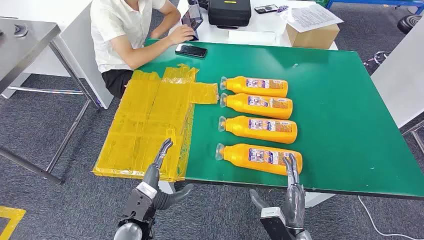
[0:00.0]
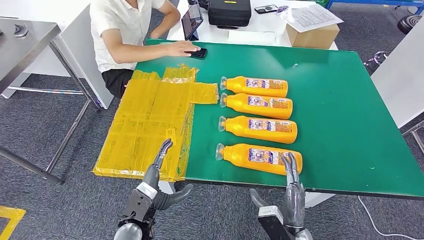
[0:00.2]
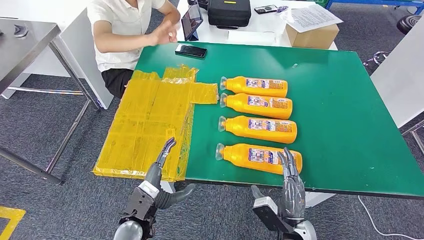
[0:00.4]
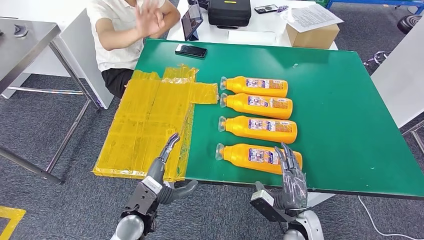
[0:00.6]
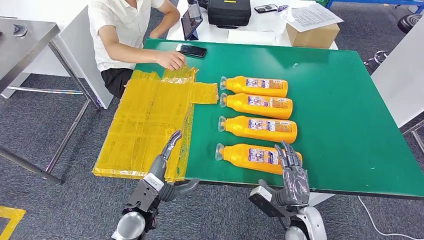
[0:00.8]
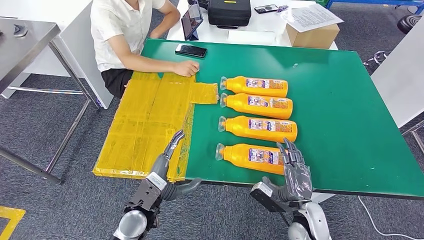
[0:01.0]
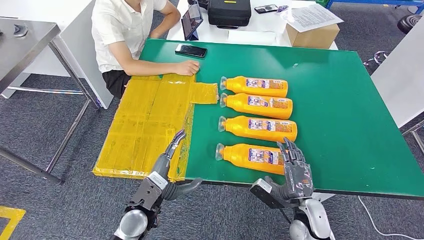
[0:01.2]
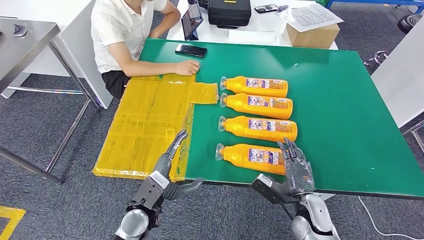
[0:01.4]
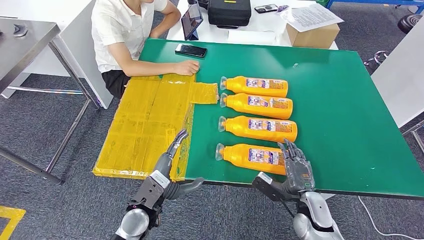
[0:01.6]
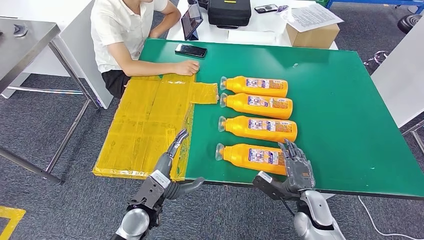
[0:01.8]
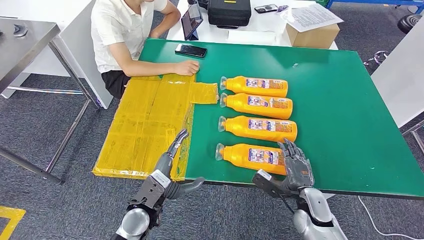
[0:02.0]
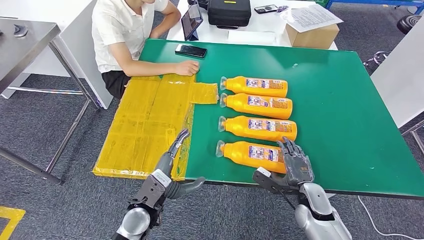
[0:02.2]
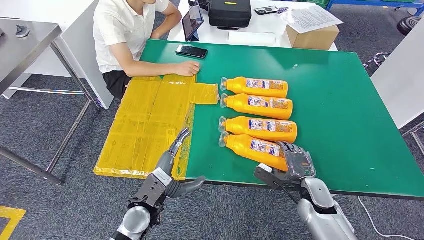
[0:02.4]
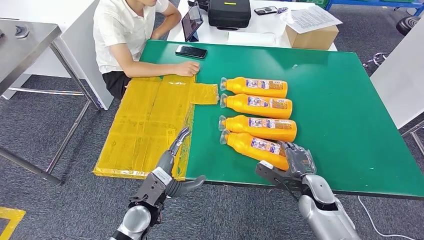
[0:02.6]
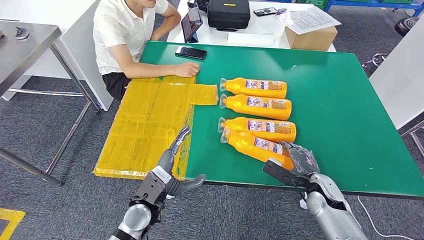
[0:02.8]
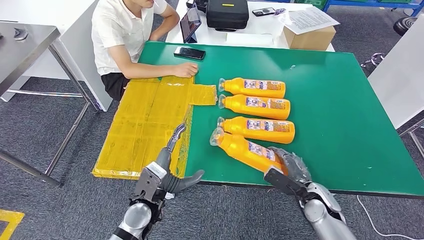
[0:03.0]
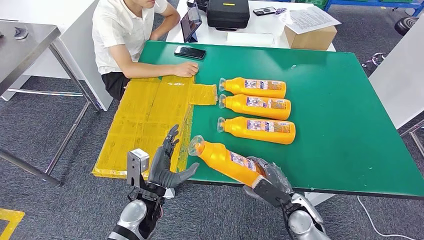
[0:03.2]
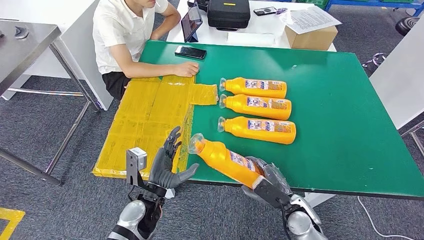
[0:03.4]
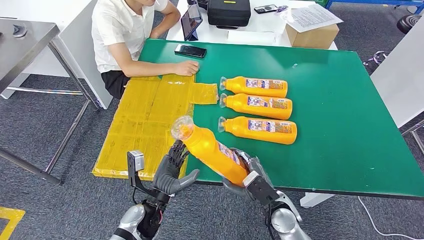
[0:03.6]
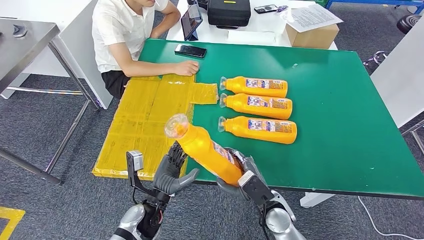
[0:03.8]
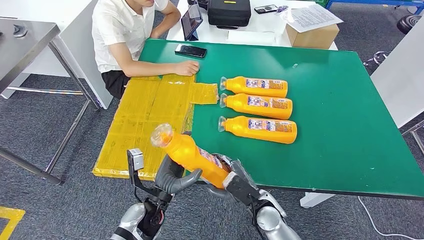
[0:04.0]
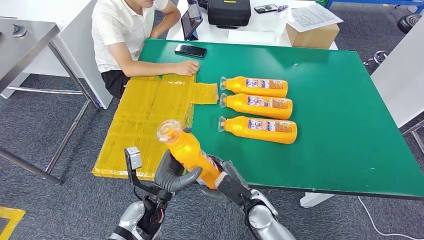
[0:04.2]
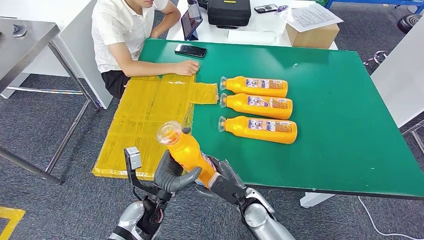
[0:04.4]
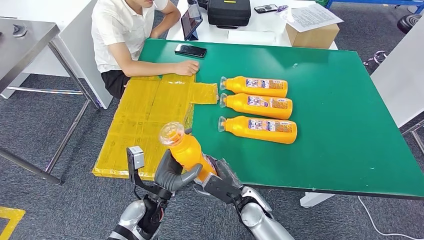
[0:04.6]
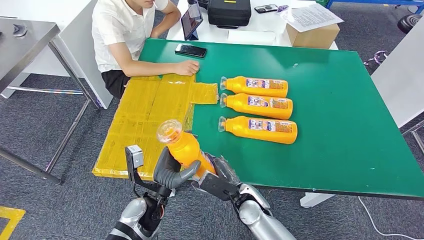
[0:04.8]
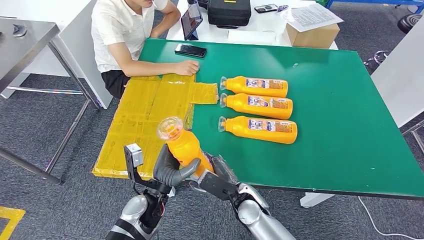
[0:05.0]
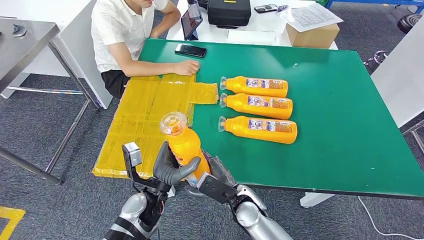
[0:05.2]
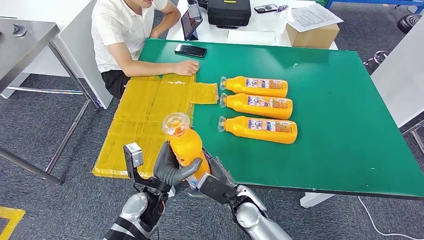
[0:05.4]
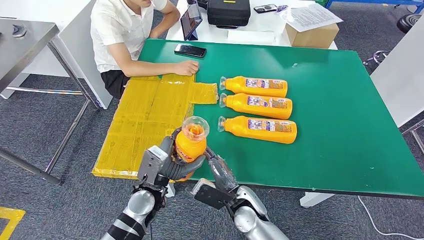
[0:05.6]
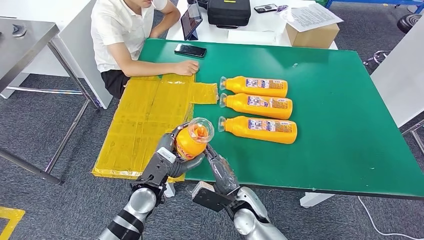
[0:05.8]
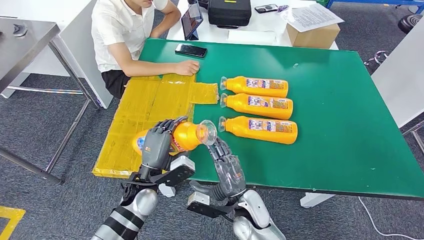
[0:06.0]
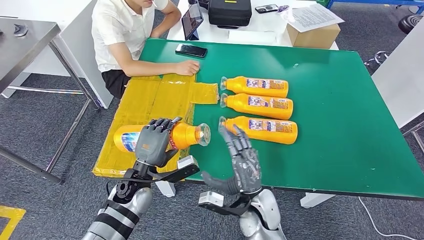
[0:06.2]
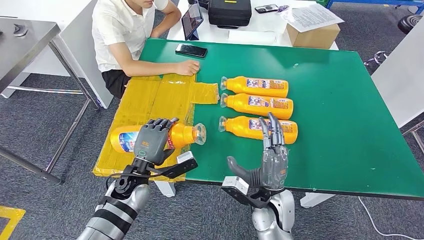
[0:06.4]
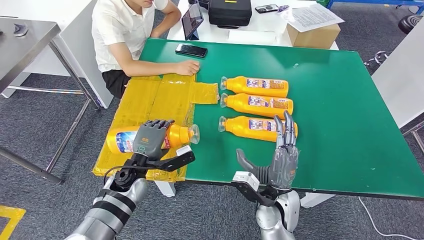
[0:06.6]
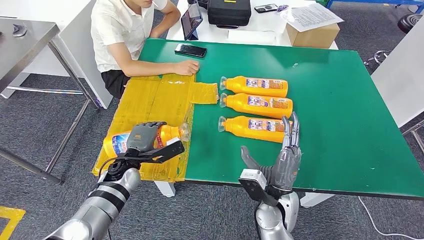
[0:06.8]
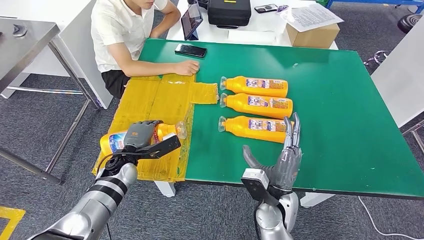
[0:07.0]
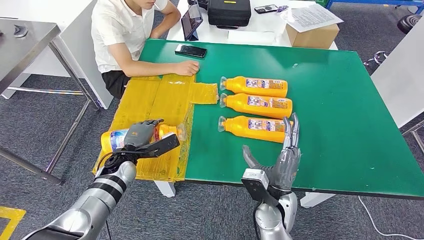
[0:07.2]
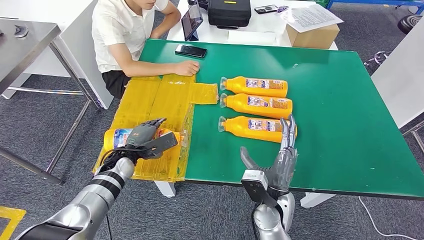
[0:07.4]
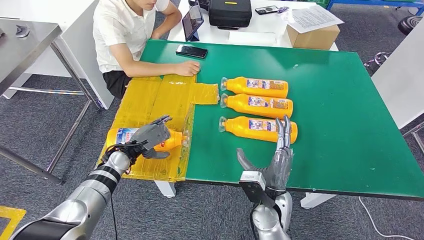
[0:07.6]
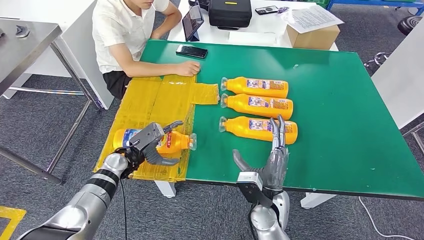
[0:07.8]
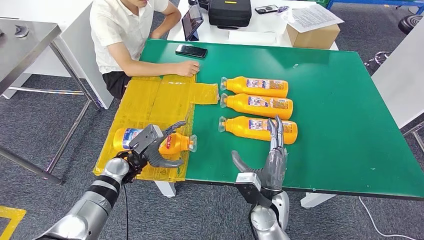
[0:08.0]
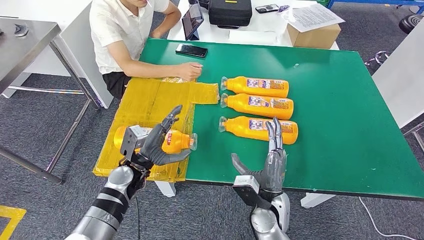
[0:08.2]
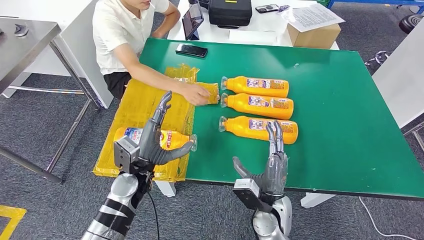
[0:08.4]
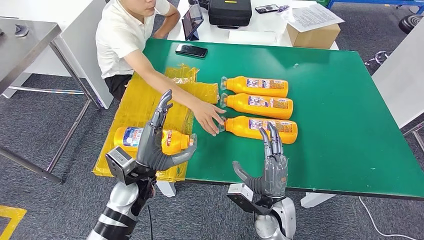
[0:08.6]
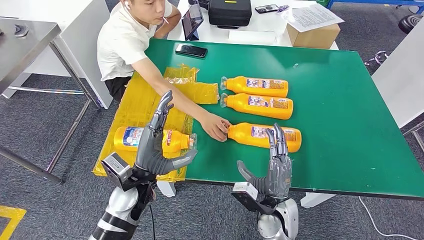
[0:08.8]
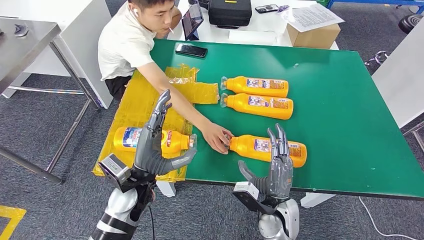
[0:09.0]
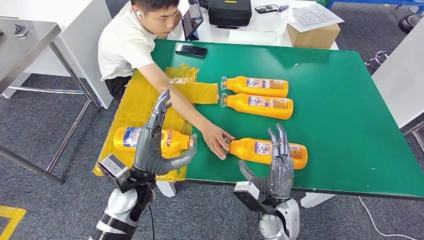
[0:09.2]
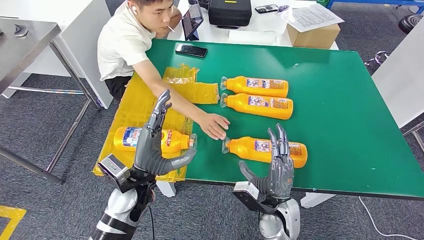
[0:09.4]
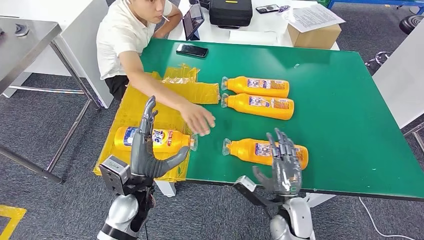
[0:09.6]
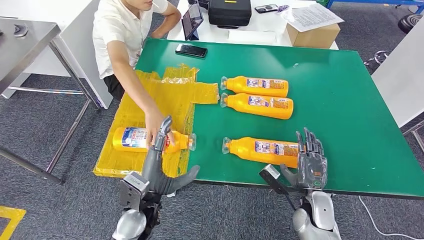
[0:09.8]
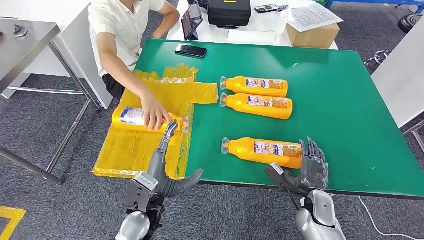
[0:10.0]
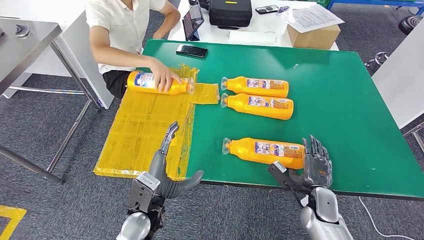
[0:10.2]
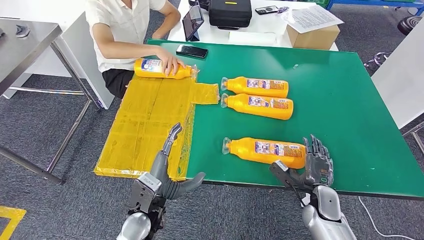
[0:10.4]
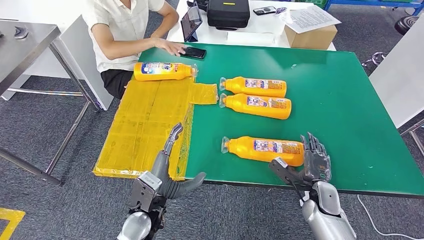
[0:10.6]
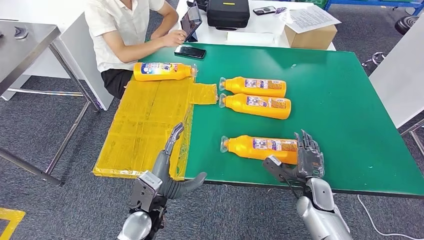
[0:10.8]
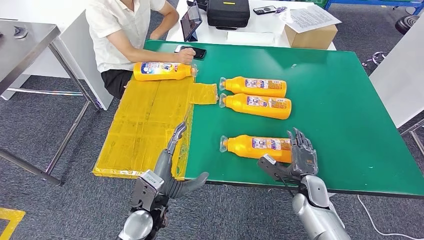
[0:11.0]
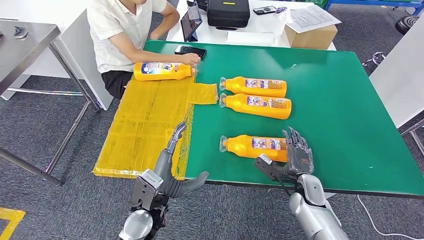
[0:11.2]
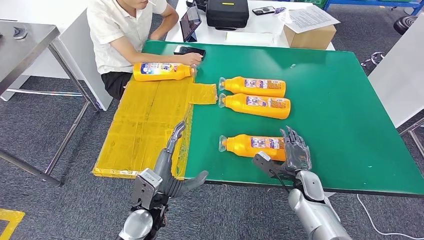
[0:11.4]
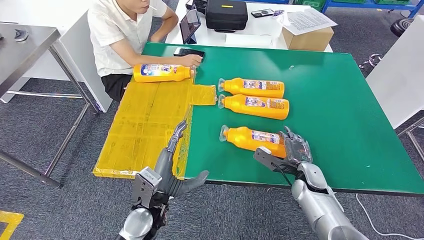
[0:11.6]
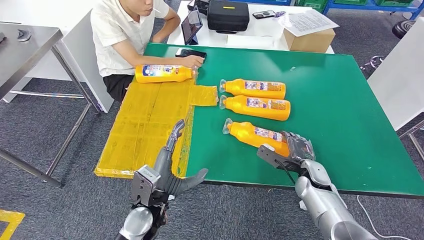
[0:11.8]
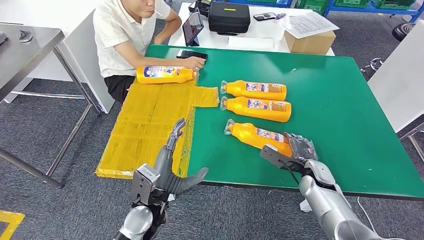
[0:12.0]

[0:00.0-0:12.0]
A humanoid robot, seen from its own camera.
Step, 0:00.0 to 0:04.8: Take the fast-moving consumer goods bottle from the table.
Step, 0:05.2 to 0:07.6: Flip the fast-moving consumer goods bottle to the front side.
0:04.4 to 0:06.0: The left hand moves some 5 cm.

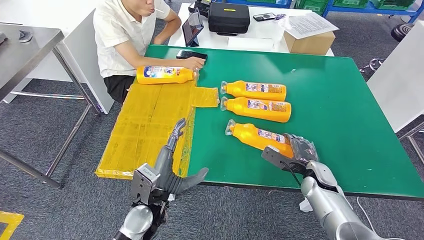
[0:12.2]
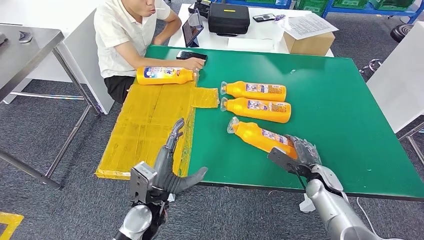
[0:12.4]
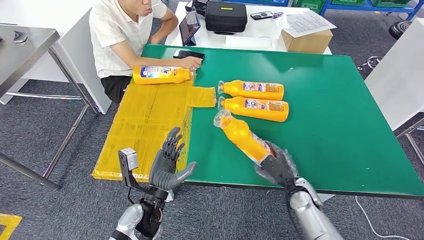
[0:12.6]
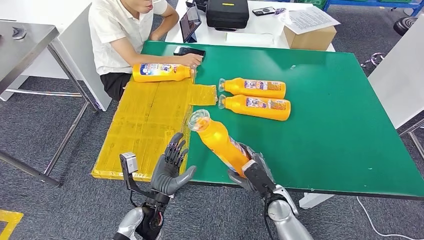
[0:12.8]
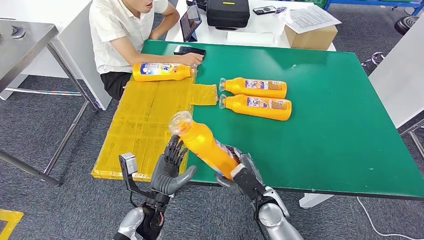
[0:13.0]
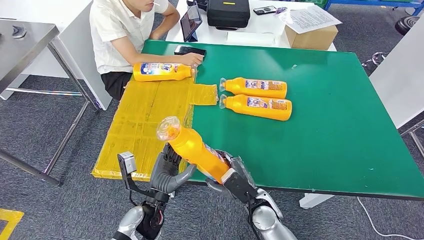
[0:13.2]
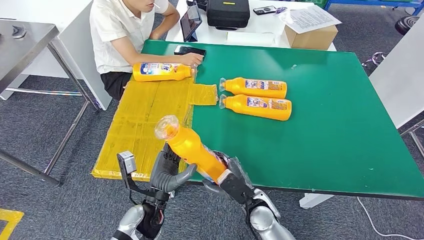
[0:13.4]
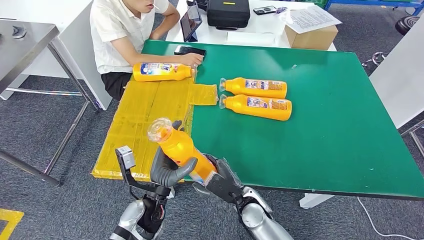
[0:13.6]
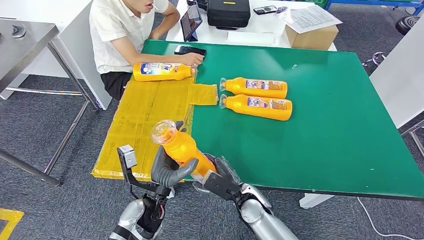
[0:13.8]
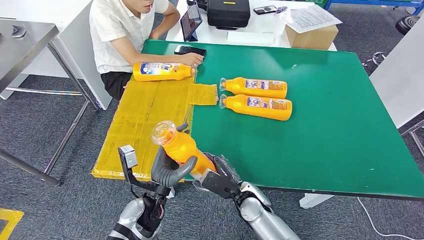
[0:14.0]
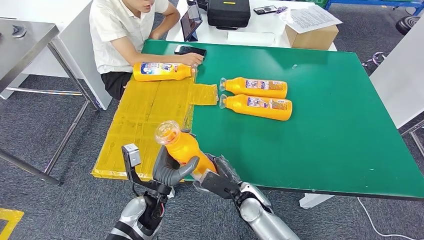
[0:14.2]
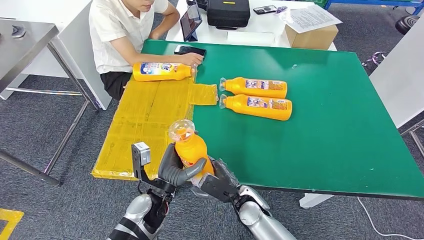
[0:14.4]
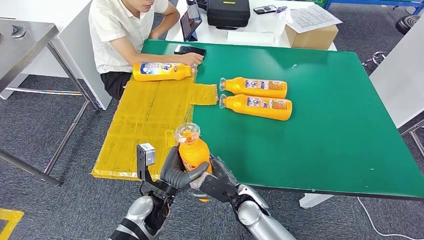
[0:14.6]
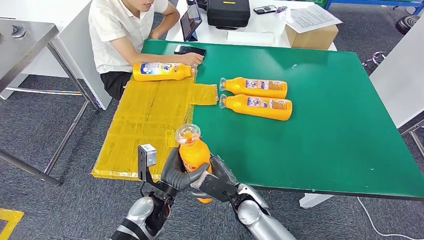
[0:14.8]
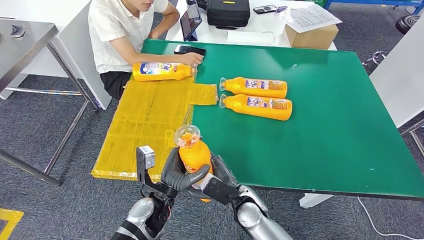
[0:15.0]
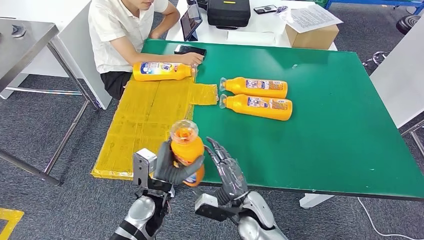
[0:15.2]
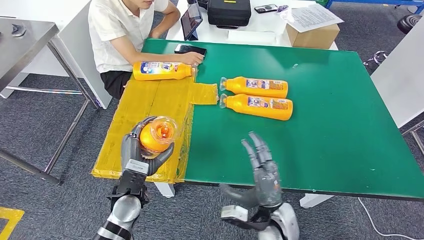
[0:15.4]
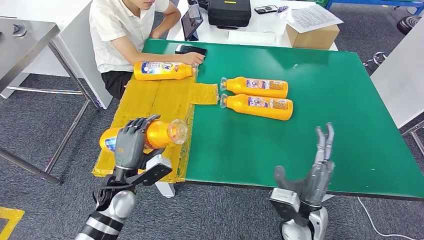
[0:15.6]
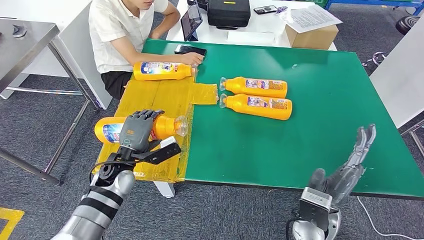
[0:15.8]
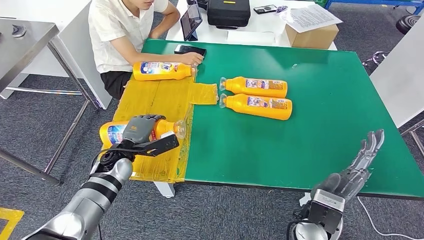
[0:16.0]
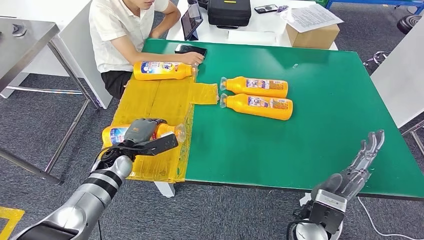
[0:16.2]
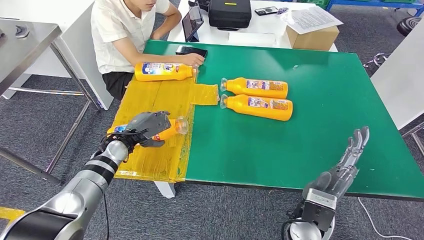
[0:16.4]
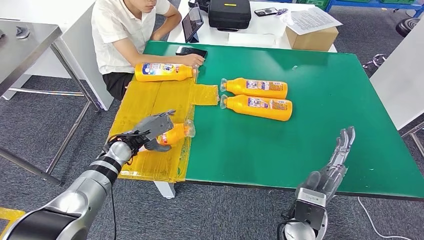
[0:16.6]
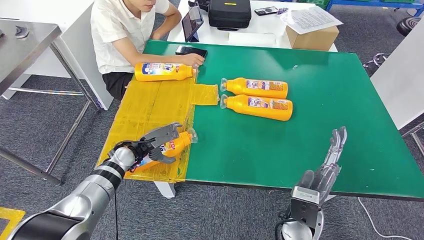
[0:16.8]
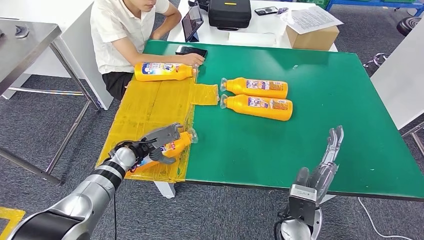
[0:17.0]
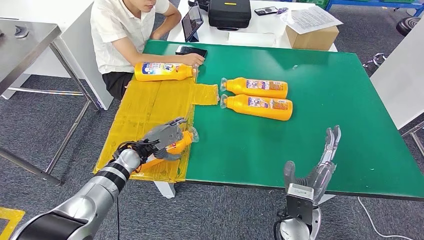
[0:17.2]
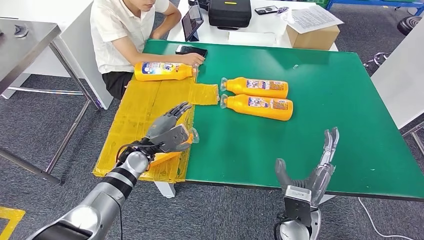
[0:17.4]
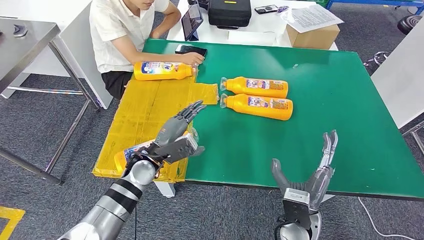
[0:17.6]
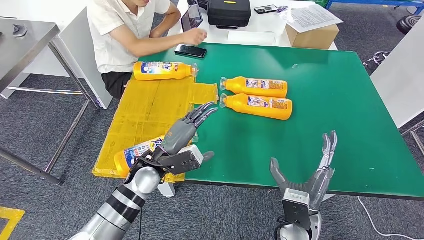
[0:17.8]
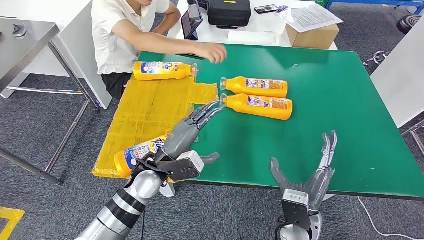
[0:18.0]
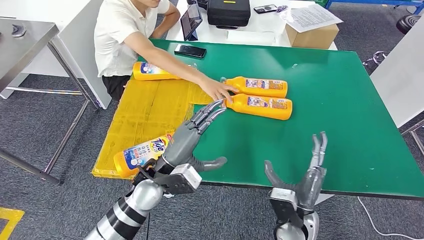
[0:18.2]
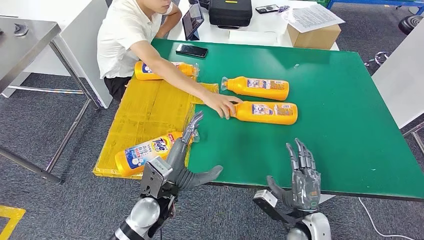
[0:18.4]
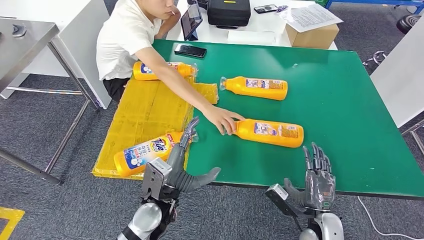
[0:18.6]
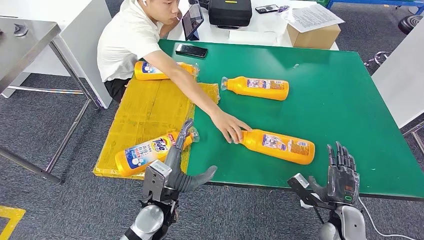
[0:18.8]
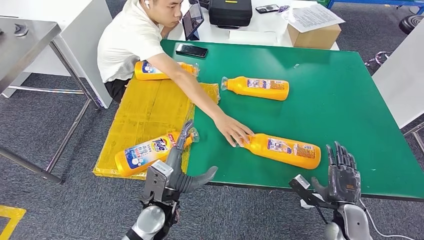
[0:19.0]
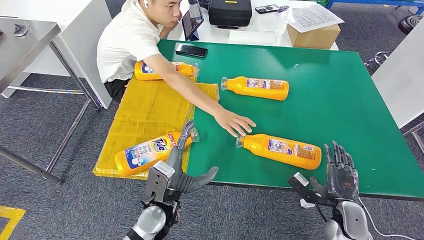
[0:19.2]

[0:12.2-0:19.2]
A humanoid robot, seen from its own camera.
Step, 0:13.2 to 0:16.8: Flip the fast-moving consumer goods bottle to the front side.
0:13.6 to 0:15.0: There are only small adjustments of the hands.
